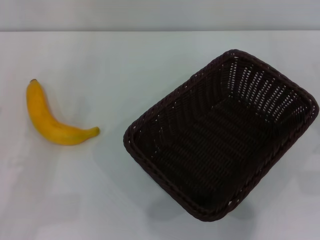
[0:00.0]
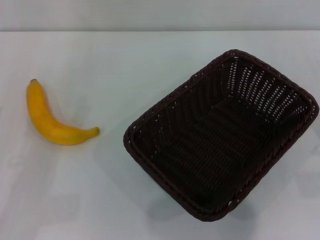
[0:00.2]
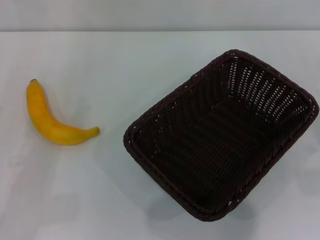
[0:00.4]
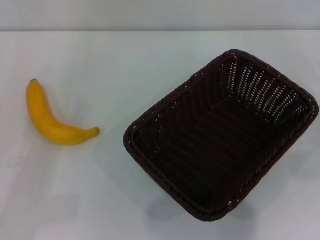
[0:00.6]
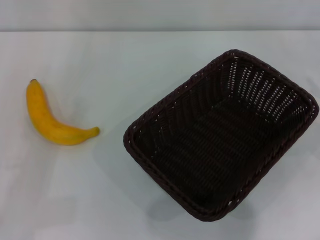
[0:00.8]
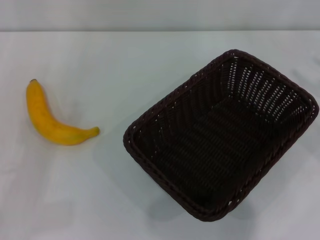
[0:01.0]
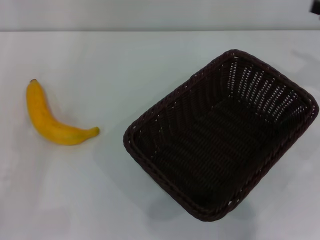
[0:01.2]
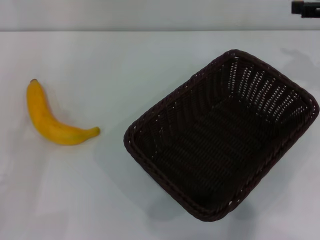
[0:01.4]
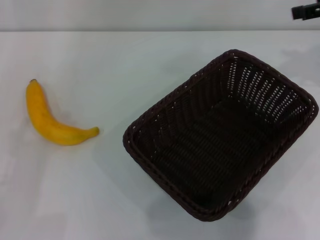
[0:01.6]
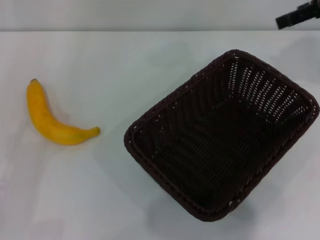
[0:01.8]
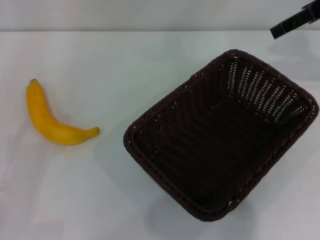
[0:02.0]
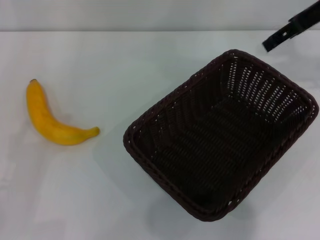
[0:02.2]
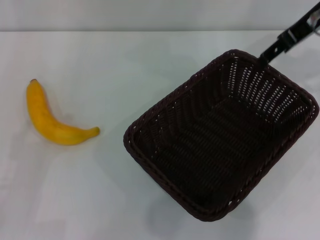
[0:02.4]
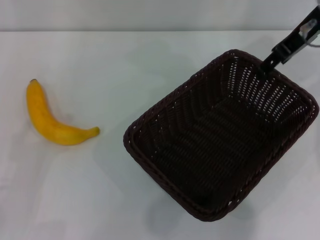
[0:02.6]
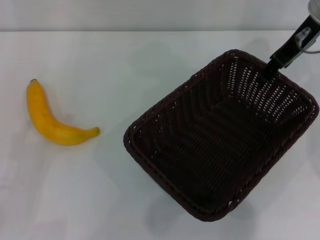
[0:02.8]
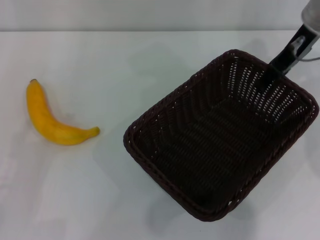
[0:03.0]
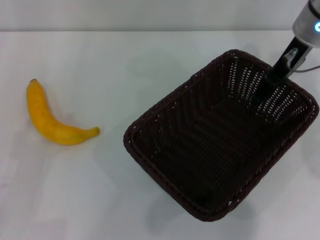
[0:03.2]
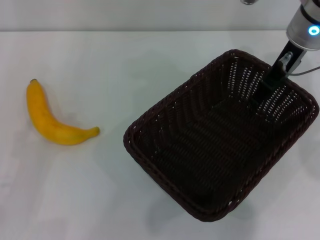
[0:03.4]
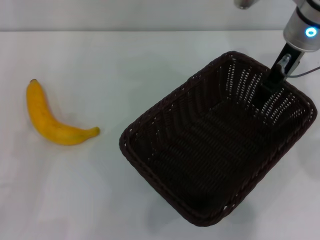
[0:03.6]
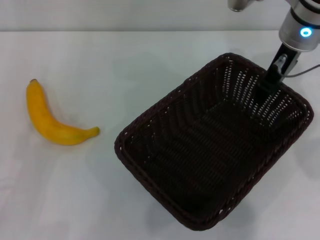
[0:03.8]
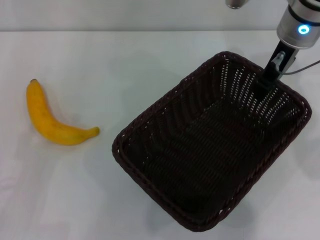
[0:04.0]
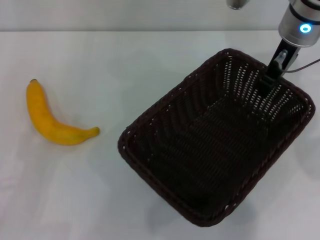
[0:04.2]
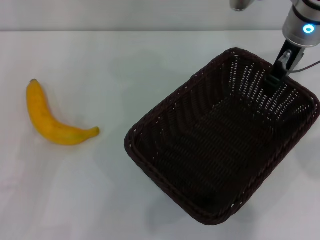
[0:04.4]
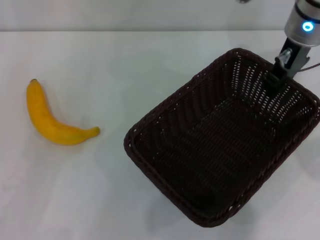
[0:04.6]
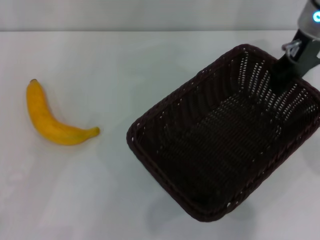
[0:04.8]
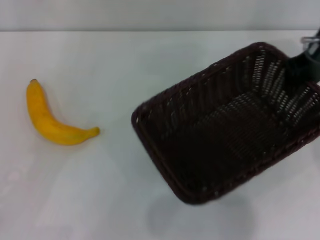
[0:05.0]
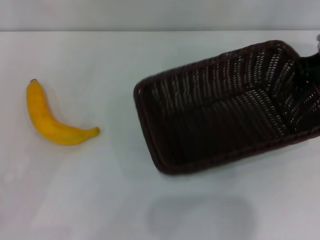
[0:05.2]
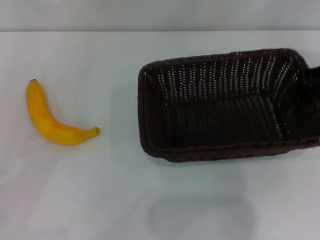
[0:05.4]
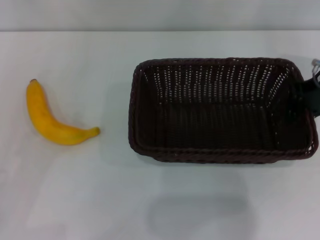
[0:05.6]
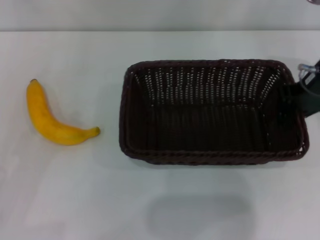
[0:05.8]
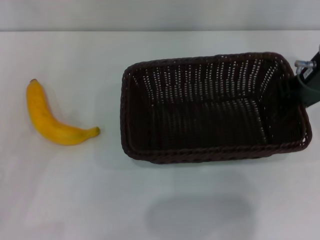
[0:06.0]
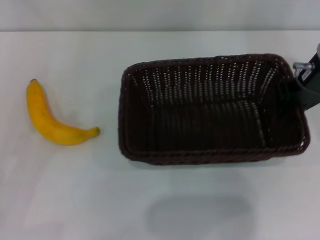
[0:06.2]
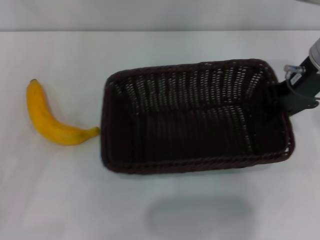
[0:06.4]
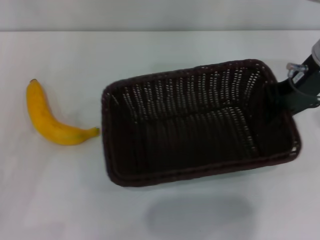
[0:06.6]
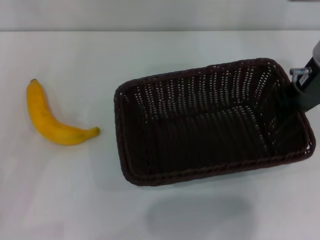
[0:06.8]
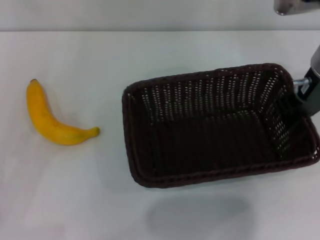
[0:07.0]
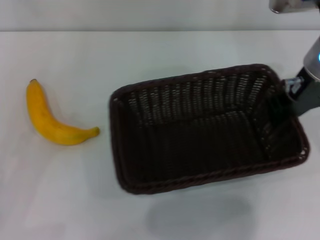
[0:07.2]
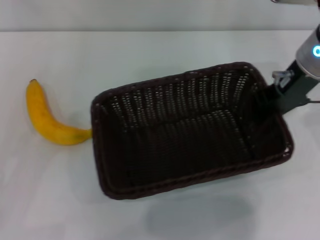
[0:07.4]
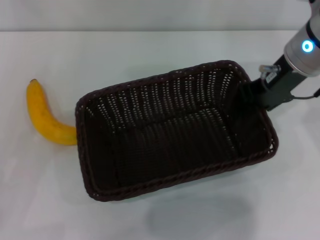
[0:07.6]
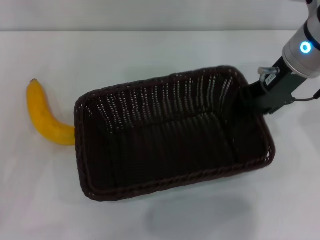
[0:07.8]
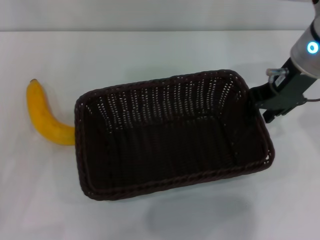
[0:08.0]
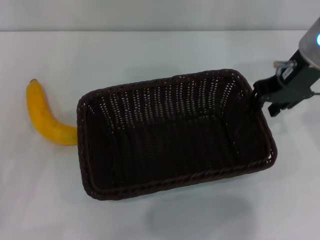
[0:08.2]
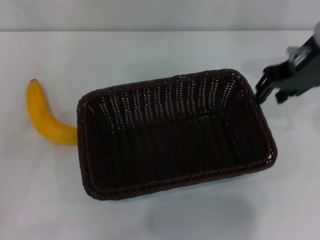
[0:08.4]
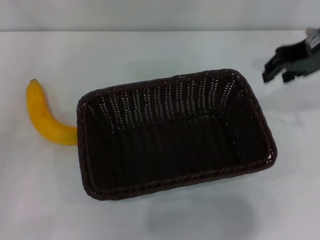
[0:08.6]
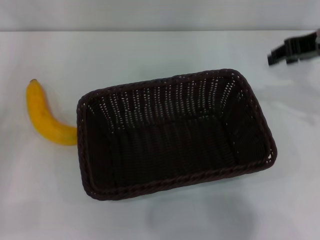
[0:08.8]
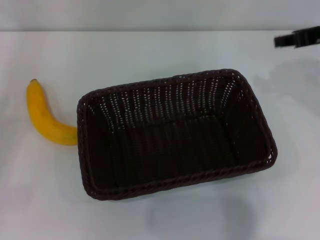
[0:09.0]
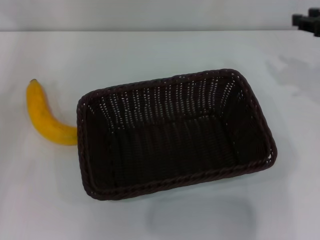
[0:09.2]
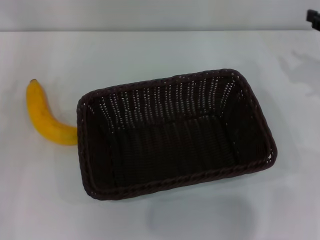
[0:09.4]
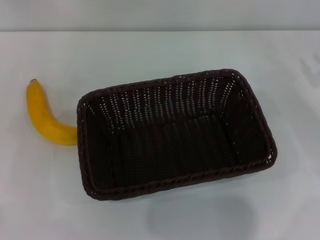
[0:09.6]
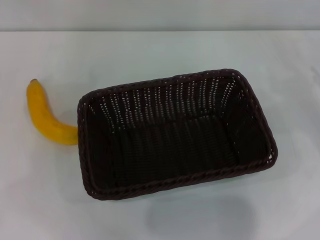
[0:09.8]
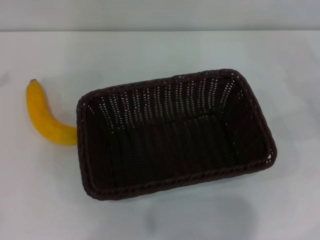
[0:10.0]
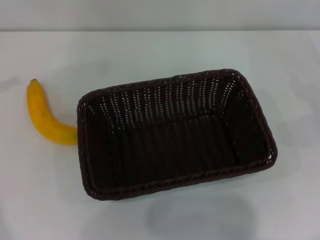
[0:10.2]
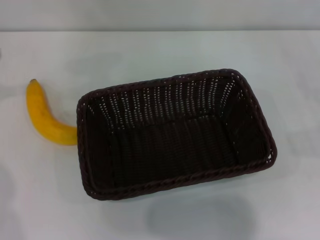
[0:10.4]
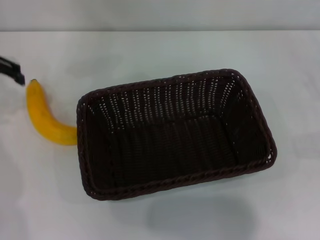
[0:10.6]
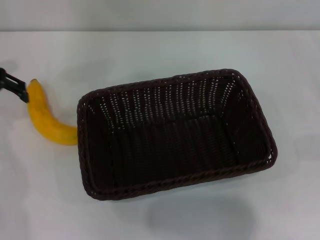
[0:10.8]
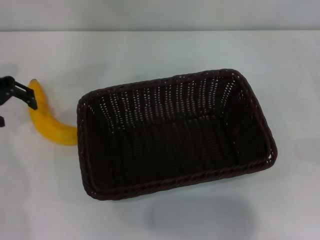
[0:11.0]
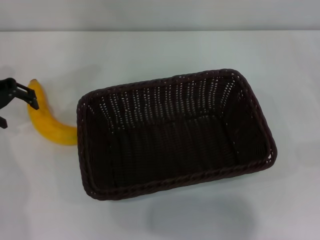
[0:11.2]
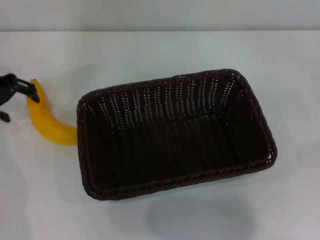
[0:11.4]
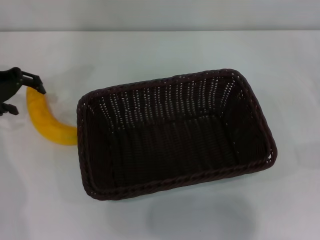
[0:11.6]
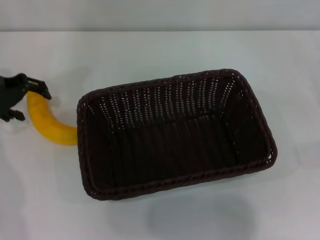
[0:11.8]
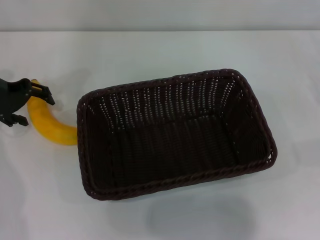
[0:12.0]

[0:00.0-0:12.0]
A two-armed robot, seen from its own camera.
Step, 0:00.0 to 0:04.8: Pick up the dark basket with the right gripper.
Step, 0:05.0 to 0:08.8: Place the dark basket in the center of view with the right gripper.
0:00.0 to 0:01.6: The right gripper is displaced upward and forward by roughly 25 cm.
0:01.6 to 0:03.0: The right gripper shifts about 10 cm to the left.
0:03.0 to 0:04.4: The right gripper closes.
0:04.4 to 0:06.0: The left gripper goes roughly 5 cm to the left. The right gripper changes place by approximately 5 cm.
0:07.6 to 0:09.0: The right gripper travels to the right by roughly 10 cm; the left gripper moves to the left, some 5 cm.
0:09.0 to 0:10.4: The right gripper goes some 25 cm to the right, downward and backward, and opens its fingers.
0:10.4 to 0:12.0: The left gripper shifts about 10 cm downward.

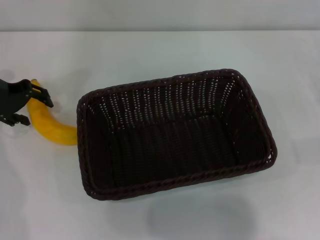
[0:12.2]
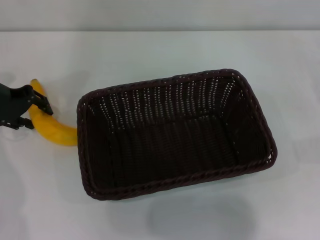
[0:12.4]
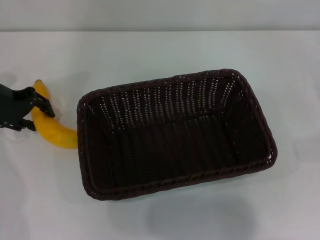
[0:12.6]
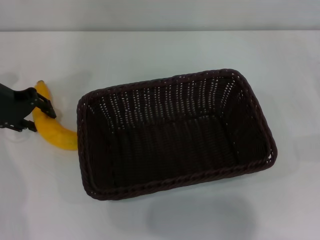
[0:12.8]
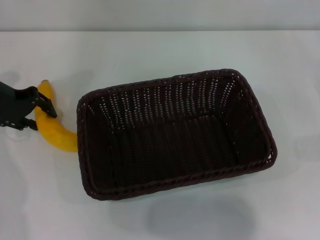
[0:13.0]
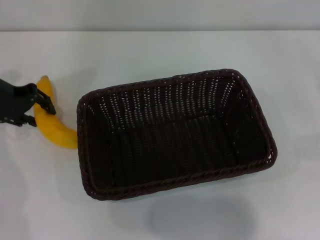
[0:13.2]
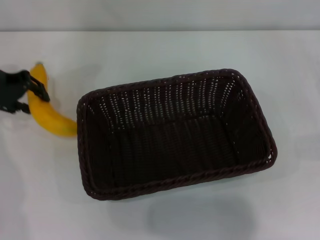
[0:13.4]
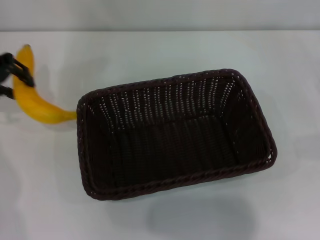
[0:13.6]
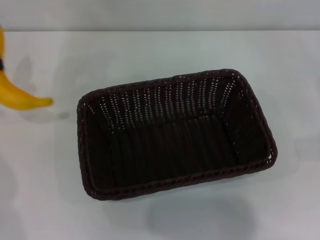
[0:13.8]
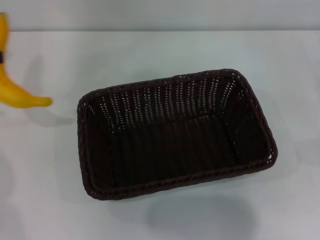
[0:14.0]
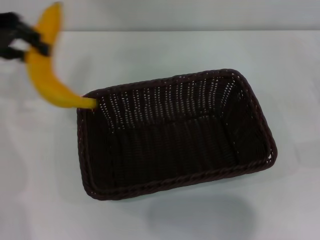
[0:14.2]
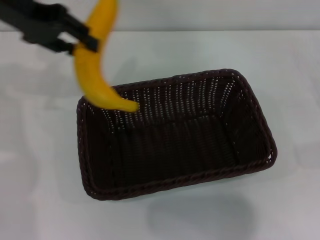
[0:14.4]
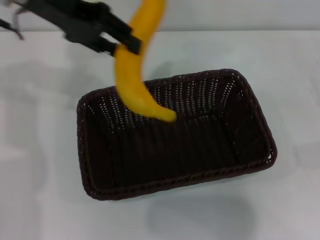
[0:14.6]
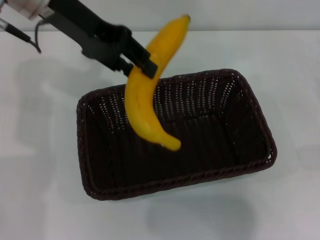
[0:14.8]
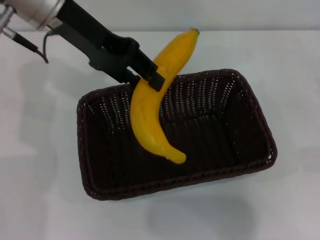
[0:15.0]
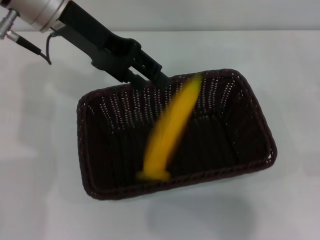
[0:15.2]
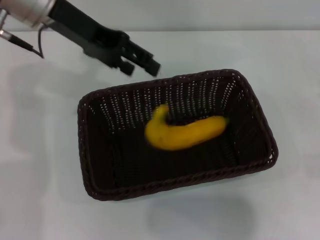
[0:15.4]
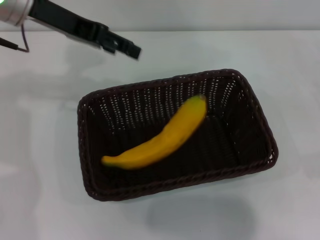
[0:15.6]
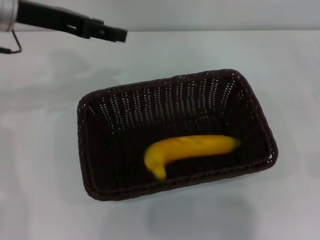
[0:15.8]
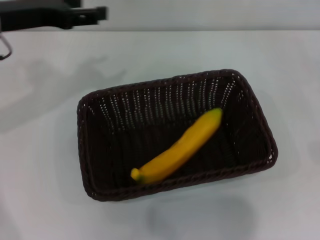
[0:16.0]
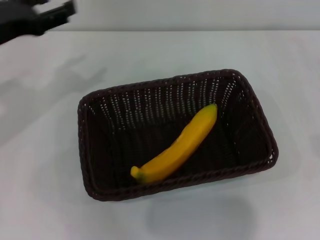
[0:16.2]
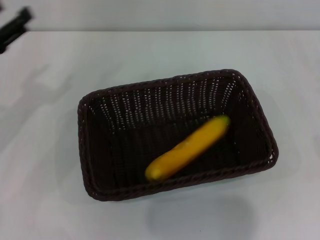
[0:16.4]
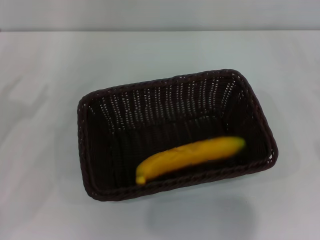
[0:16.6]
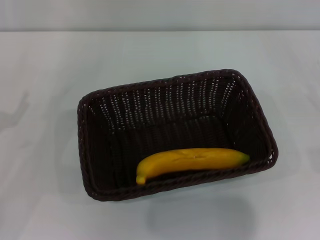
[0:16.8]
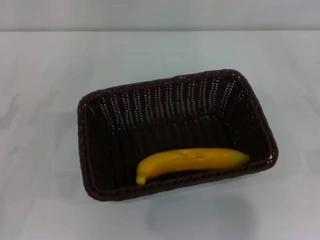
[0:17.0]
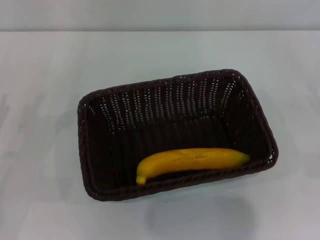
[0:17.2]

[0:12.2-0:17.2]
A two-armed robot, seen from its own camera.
Step, 0:13.8 to 0:15.6: Place the banana into the dark basket with the left gripper.
0:12.2 to 0:13.8: The left gripper heads upward, covering about 10 cm, and closes.
0:13.8 to 0:15.6: The left gripper moves to the right, about 15 cm, and opens up.
0:15.6 to 0:17.2: The left gripper goes approximately 30 cm downward, backward and to the left.
